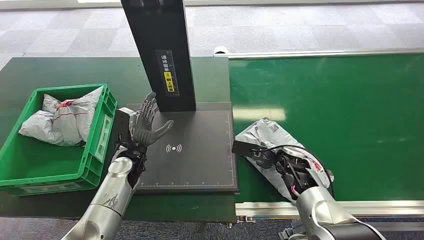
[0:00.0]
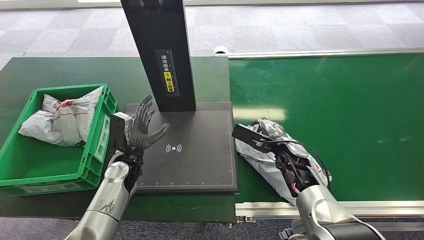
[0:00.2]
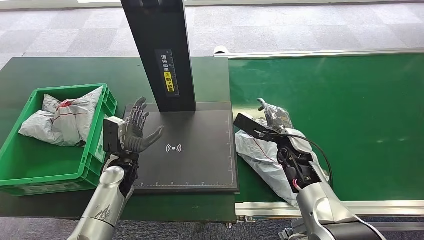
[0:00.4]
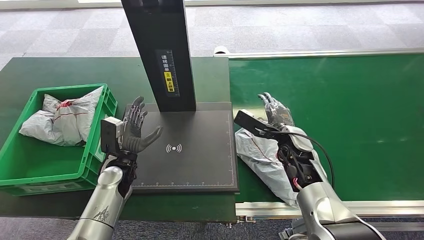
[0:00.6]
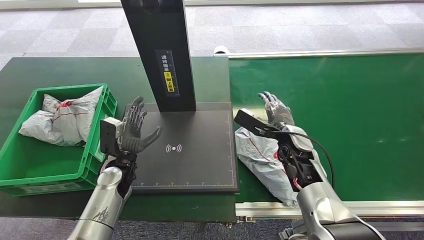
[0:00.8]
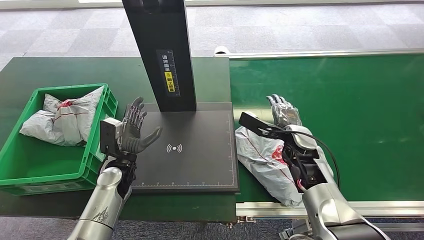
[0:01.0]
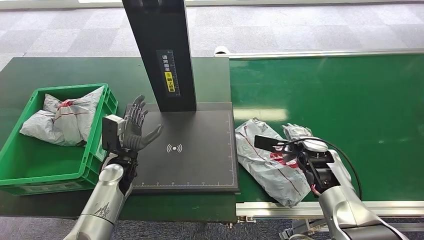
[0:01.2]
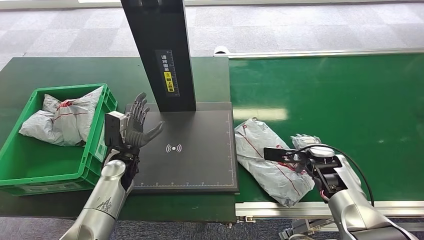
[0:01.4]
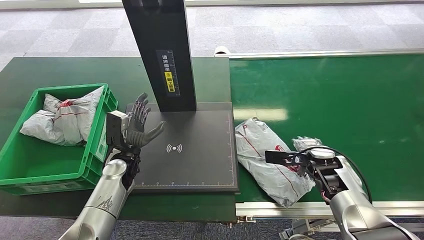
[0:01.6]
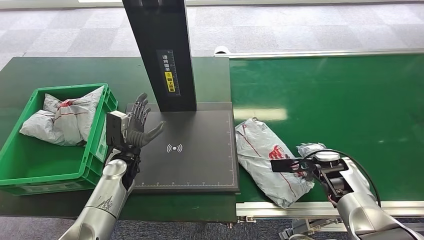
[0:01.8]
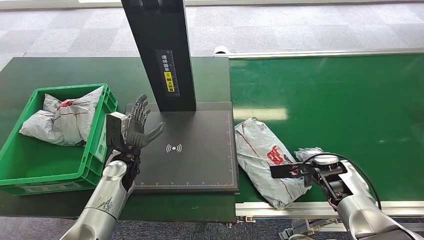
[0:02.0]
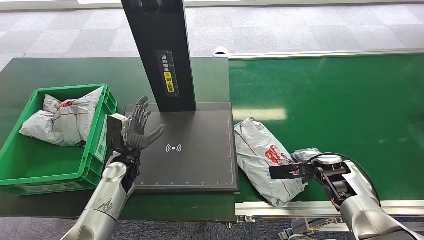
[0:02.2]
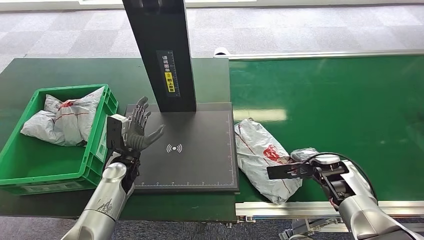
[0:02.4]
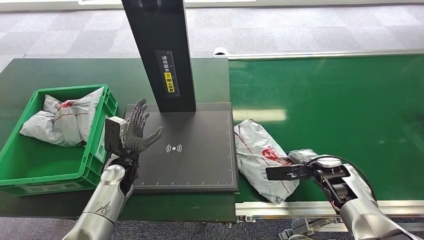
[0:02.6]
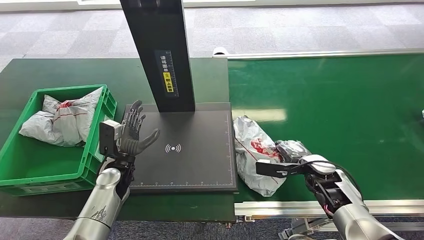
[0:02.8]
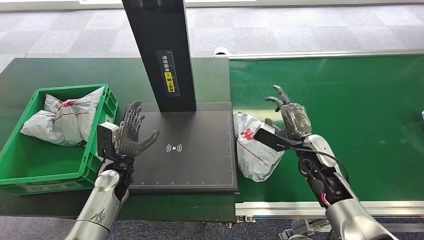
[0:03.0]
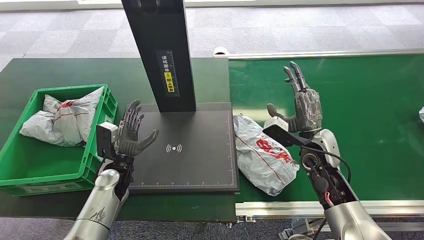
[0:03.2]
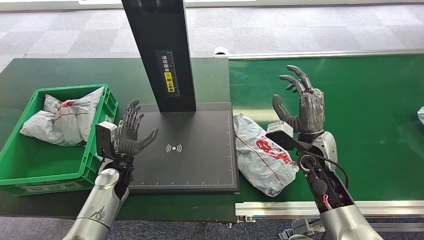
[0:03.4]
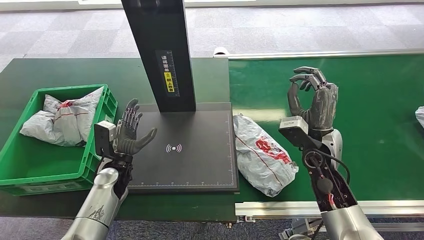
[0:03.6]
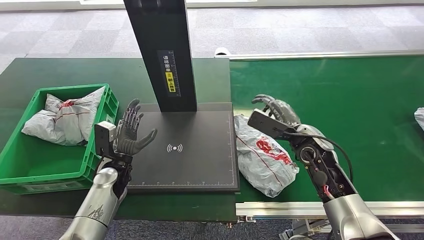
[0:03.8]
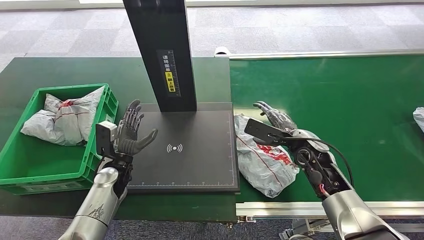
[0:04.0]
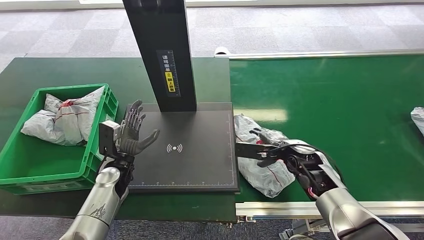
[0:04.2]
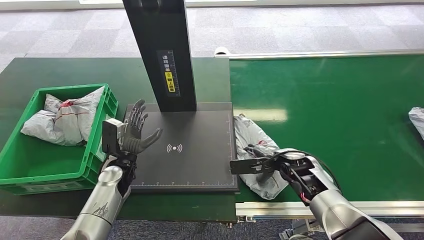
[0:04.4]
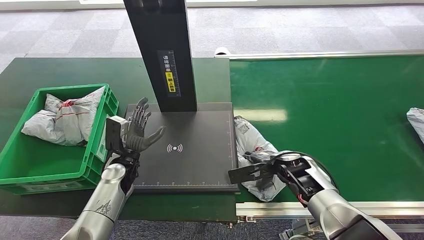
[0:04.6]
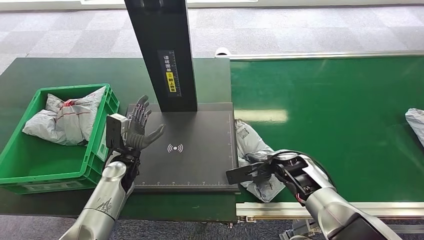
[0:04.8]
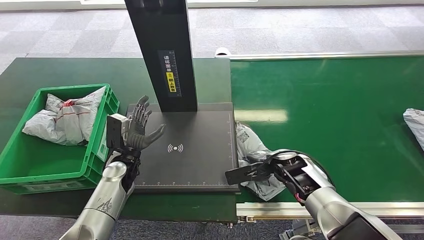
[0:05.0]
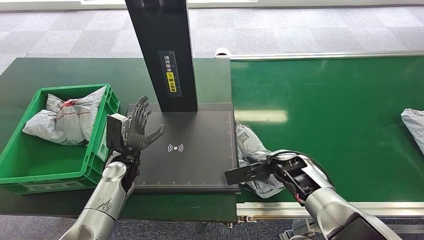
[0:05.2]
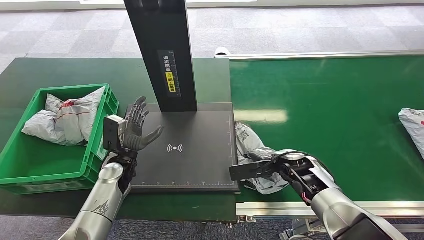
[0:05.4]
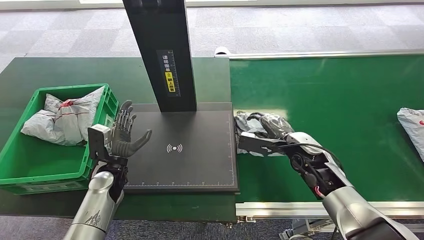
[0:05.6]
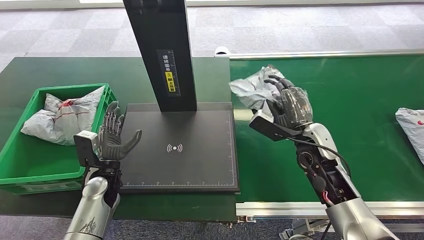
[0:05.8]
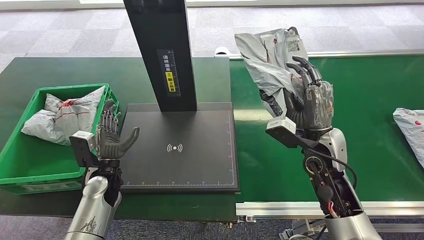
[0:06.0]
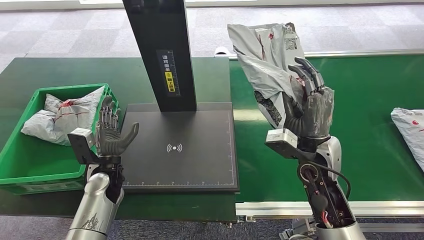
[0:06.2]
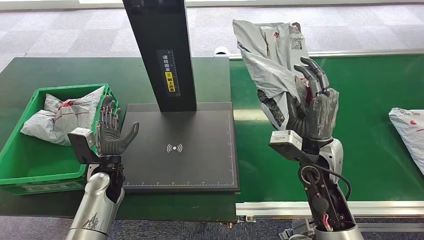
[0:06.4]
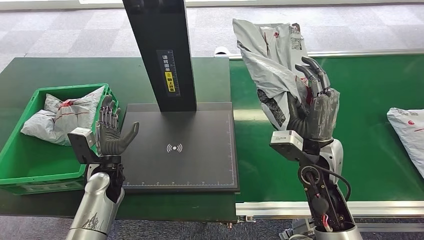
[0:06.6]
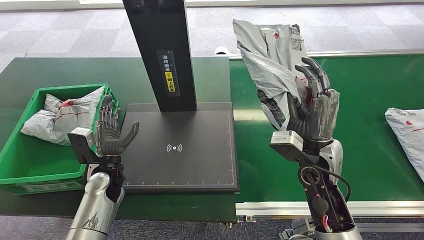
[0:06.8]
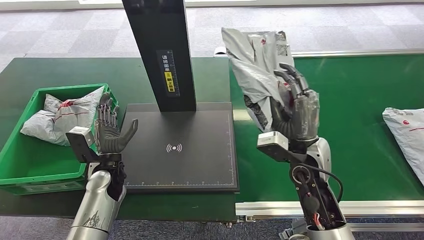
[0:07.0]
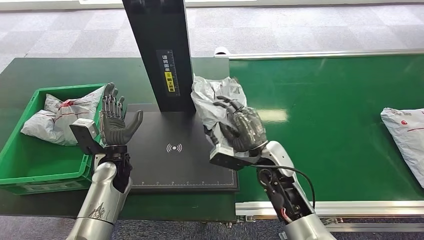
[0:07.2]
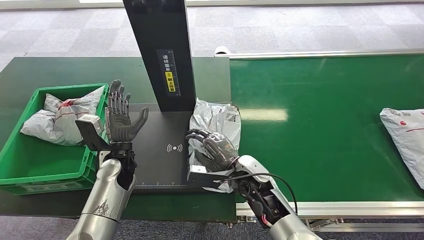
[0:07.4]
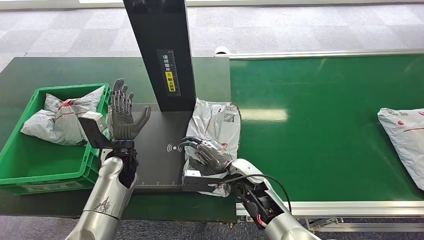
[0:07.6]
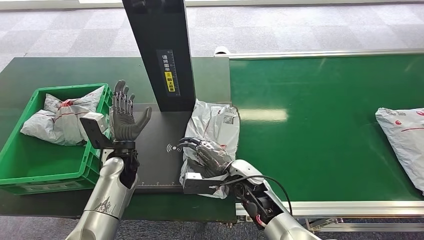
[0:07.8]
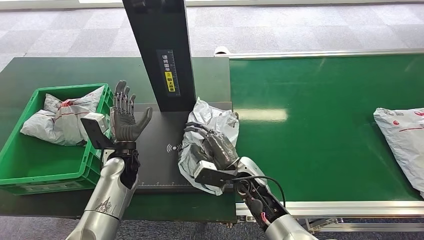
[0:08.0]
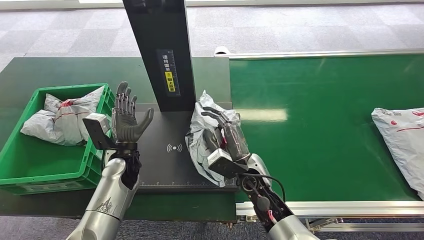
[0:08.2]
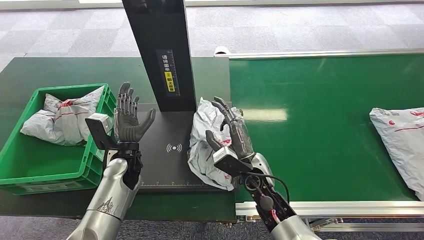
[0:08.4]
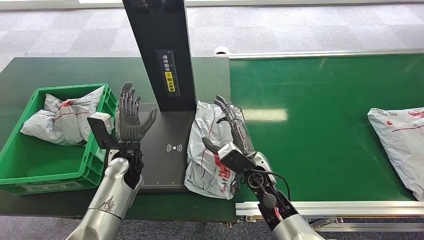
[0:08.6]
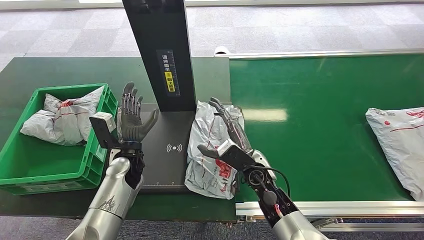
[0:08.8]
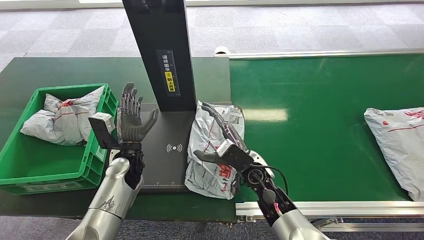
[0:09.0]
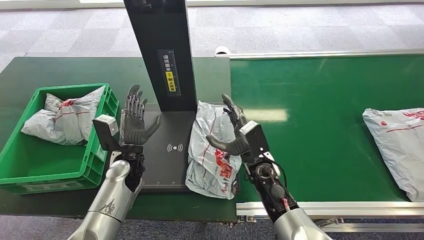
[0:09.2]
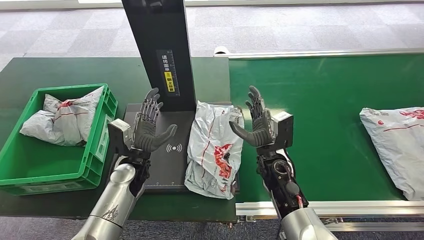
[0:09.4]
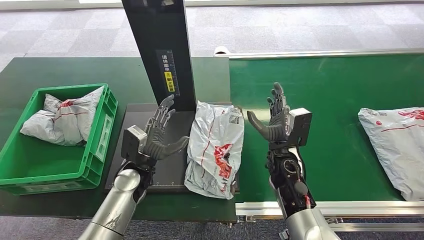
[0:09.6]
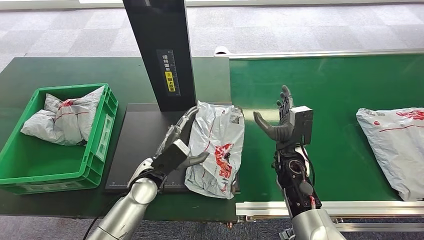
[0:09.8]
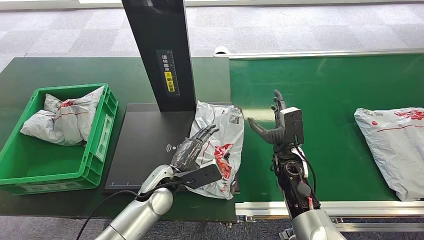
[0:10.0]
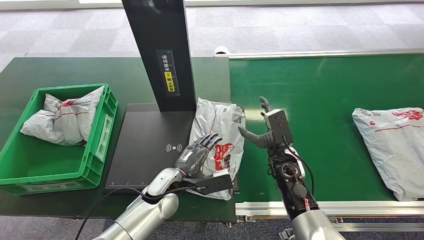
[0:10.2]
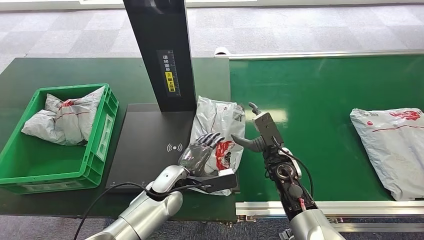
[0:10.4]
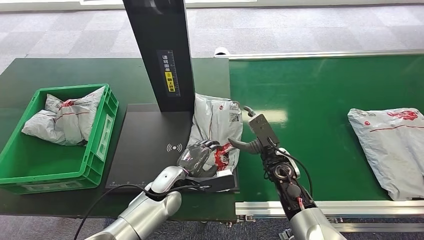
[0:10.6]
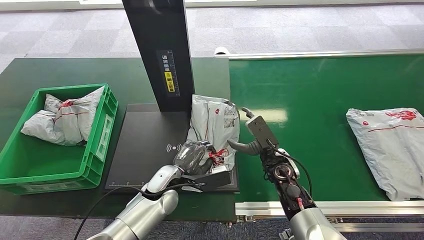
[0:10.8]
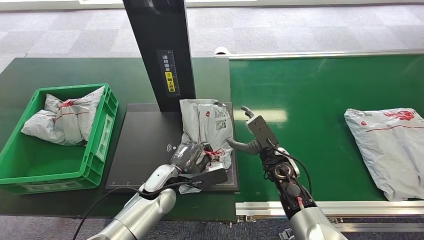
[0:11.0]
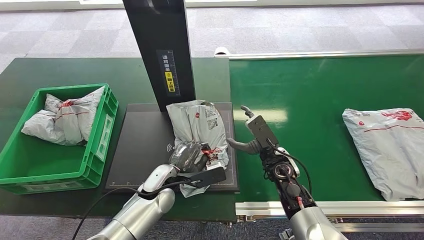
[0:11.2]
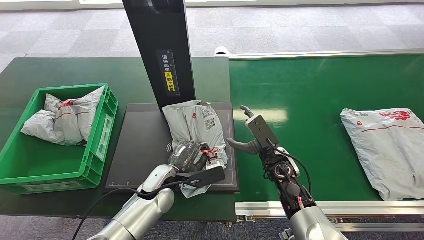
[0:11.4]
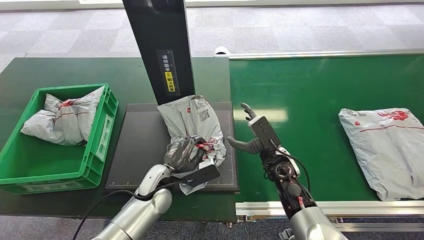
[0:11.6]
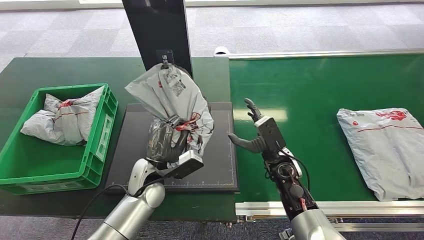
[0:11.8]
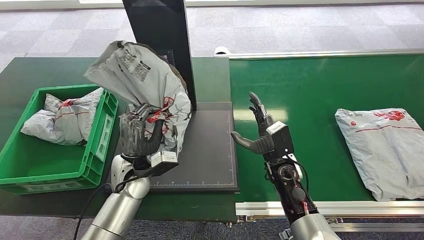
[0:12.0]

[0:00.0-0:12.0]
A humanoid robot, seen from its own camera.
Task of the whole recording: Weigh the package on the weighing device and place it in the left basket.
Step, 0:00.0 to 0:06.4: Pick up the package from the conveyor belt.
Step, 0:06.8 to 0:09.4: Place the package onto the inbound machine.
0:03.0 to 0:04.4: The right hand travels upward and back again, some 5 cm each way.

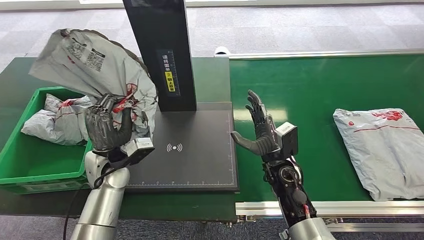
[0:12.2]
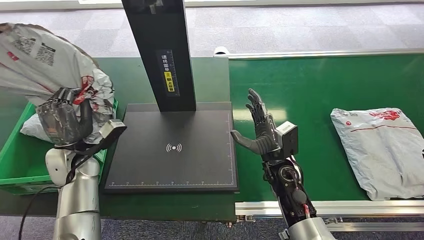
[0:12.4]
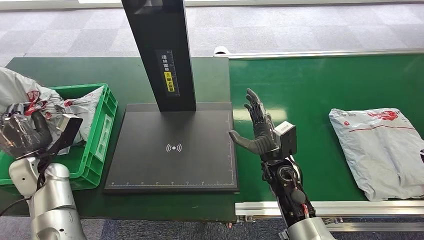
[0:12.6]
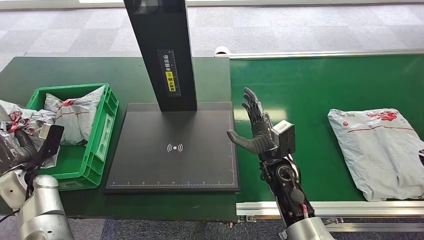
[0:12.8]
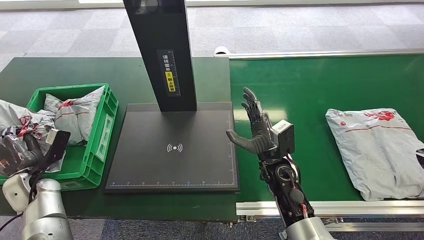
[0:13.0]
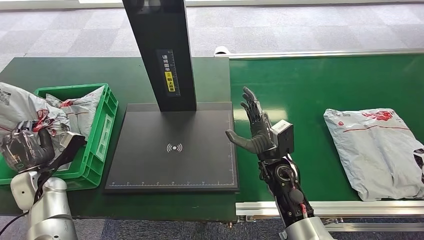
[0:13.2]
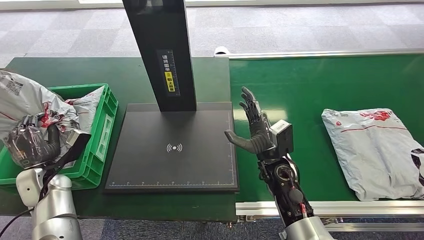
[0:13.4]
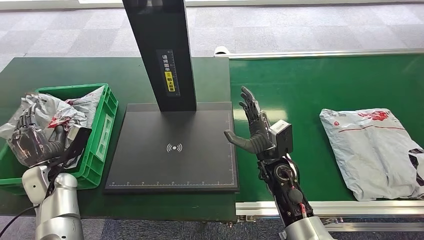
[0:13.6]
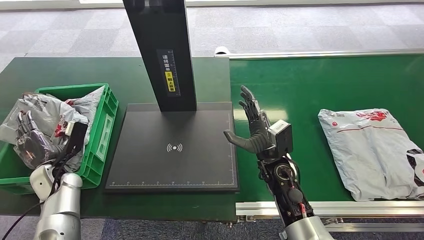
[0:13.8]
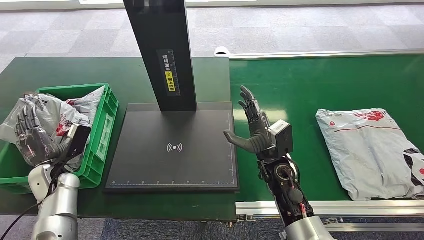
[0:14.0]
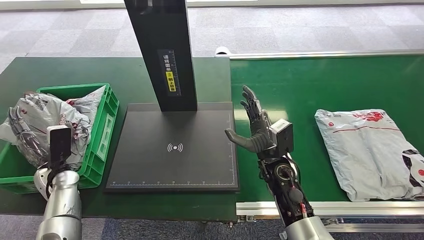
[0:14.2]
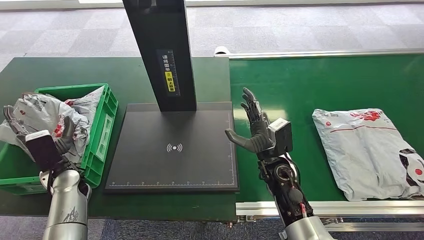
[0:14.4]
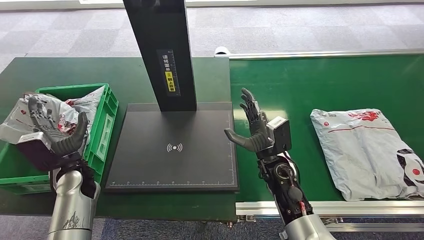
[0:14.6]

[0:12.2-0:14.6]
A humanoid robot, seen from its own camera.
Task of the whole recording: Weigh the package on the weighing device and place it in the left basket.
Step, 0:12.6 to 0:14.6: Place the package into the parcel locker.
0:13.4 to 0:14.6: The left hand moves to the right, some 10 cm.

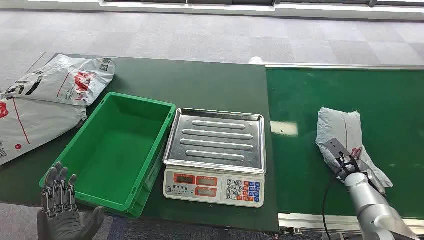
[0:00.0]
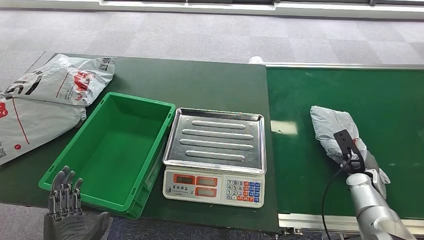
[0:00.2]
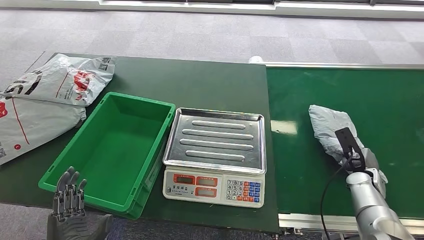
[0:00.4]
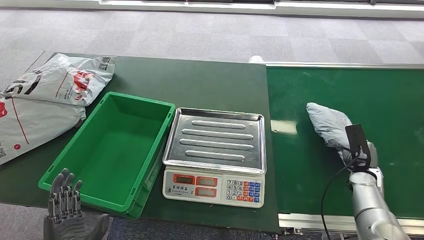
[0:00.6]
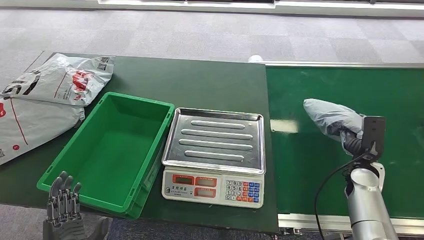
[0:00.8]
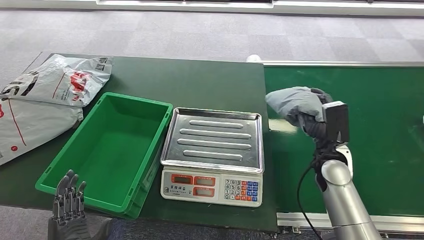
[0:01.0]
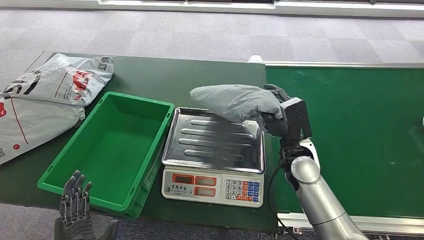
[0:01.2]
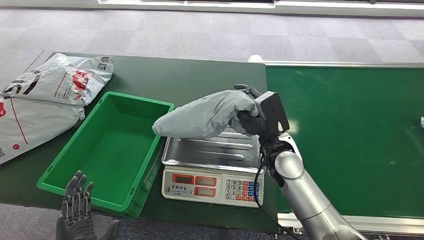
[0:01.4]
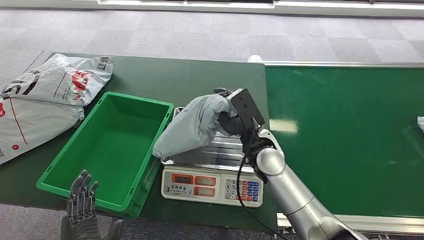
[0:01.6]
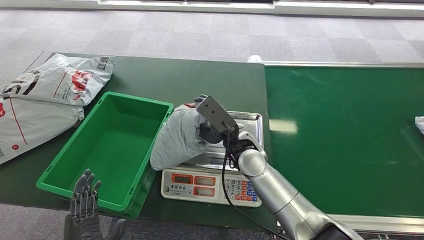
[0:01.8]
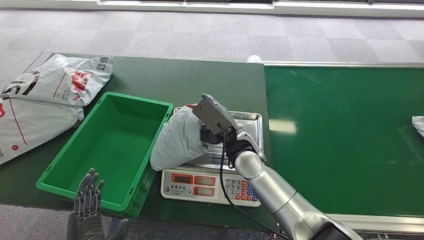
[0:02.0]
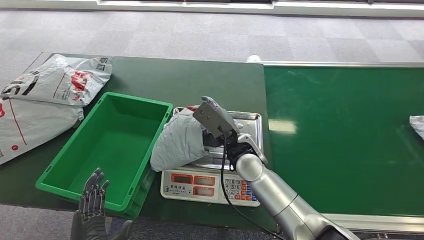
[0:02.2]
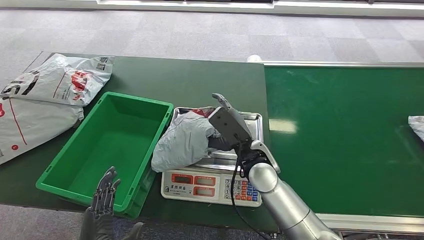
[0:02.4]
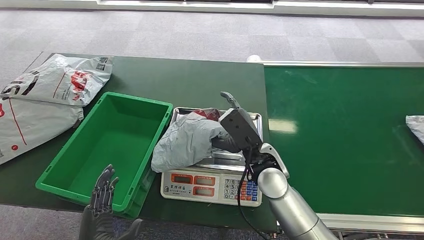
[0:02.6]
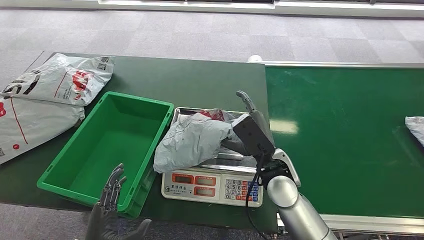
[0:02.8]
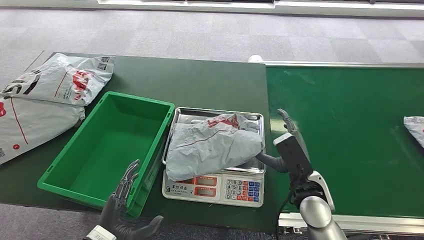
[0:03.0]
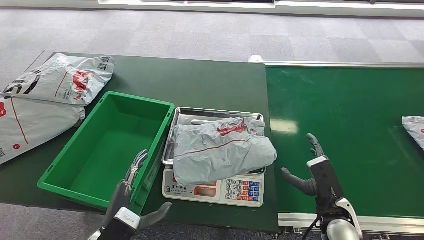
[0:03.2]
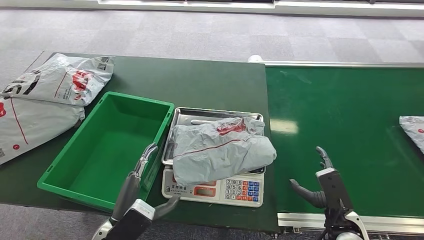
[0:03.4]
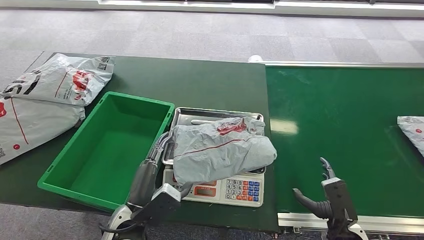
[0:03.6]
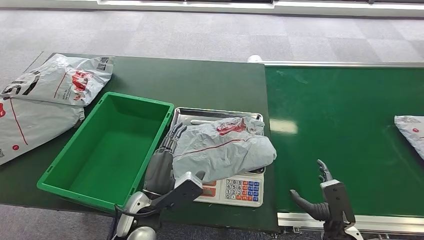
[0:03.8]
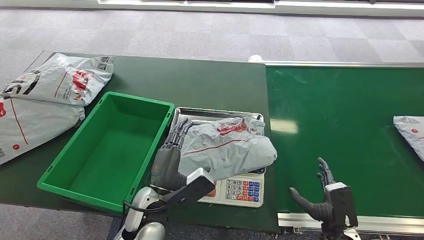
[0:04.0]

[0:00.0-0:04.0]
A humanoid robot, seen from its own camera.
Task of the whole recording: Weigh the package on the weighing device and place it in the left basket.
Step, 0:00.0 to 0:01.0: Pick up the package from the conveyor belt.
Step, 0:01.2 to 0:03.2: Place the package onto the inbound machine.
0:02.6 to 0:04.0: The right hand moves to the right, backward and downward, about 25 cm; the left hand heads forward and to the right, covering roughly 15 cm.
